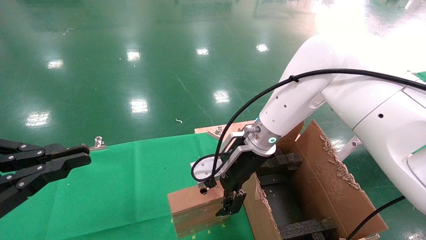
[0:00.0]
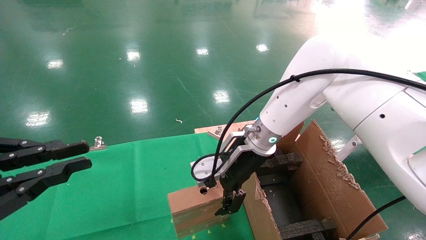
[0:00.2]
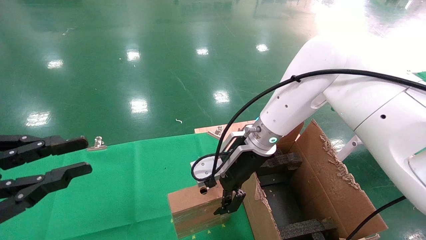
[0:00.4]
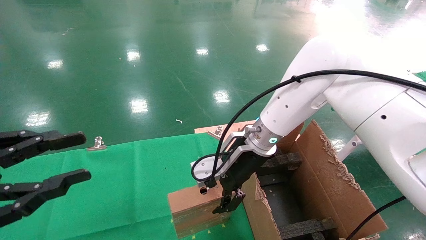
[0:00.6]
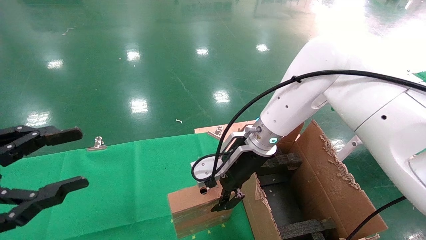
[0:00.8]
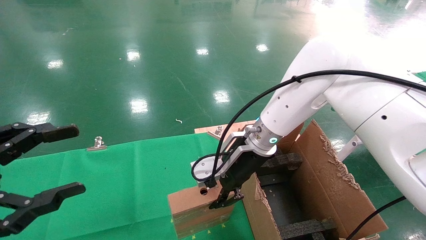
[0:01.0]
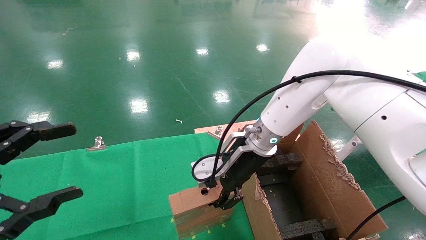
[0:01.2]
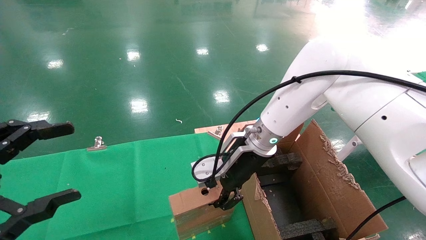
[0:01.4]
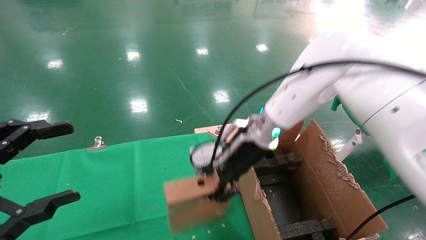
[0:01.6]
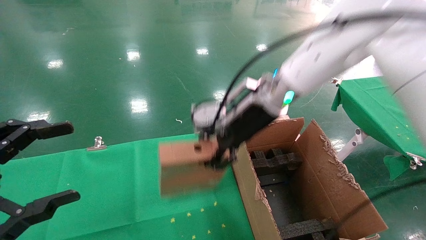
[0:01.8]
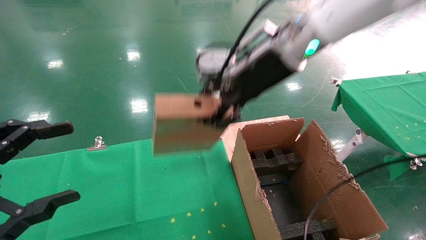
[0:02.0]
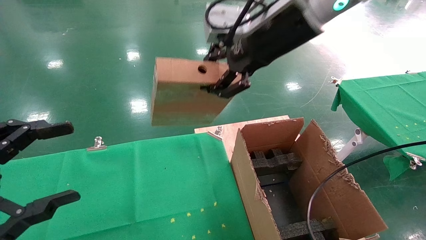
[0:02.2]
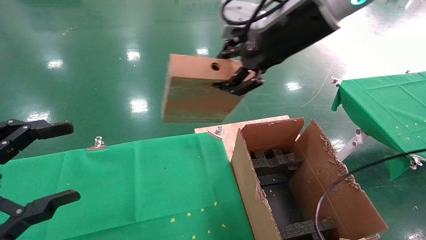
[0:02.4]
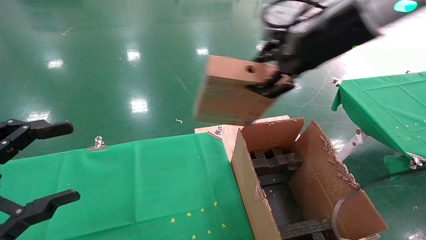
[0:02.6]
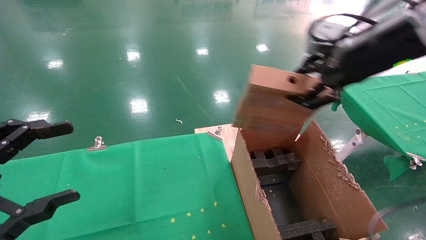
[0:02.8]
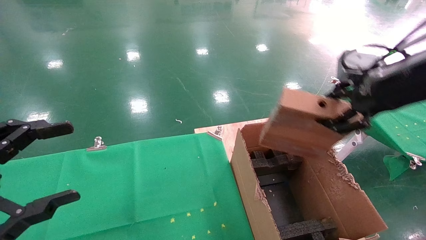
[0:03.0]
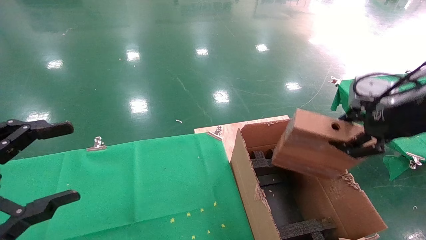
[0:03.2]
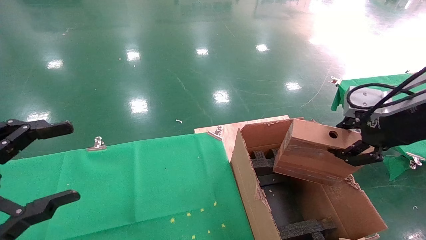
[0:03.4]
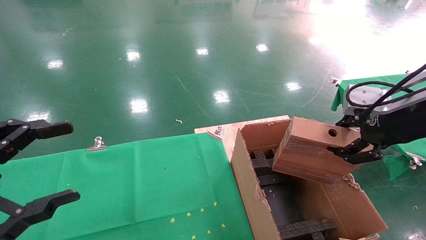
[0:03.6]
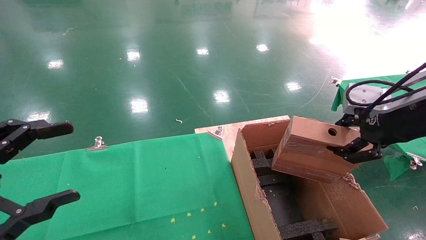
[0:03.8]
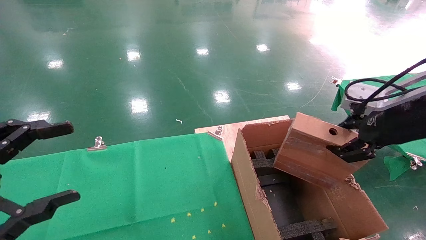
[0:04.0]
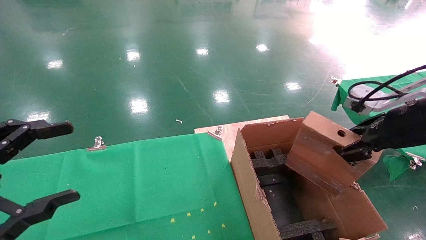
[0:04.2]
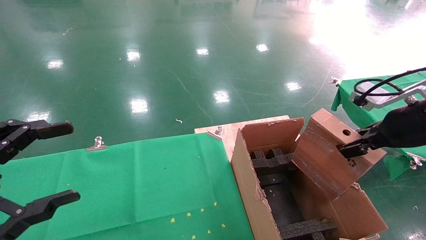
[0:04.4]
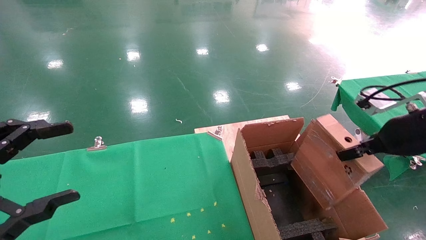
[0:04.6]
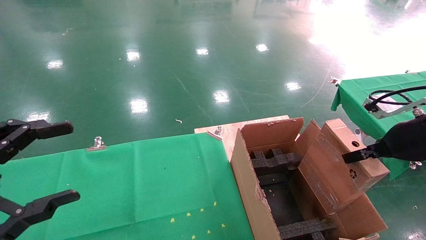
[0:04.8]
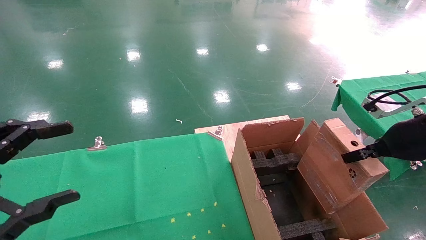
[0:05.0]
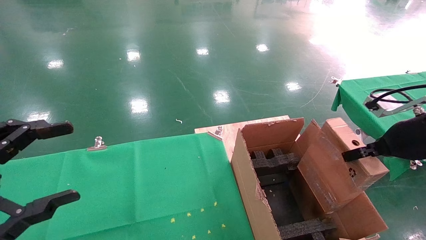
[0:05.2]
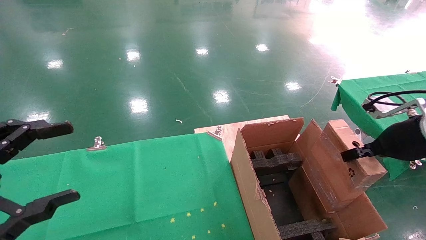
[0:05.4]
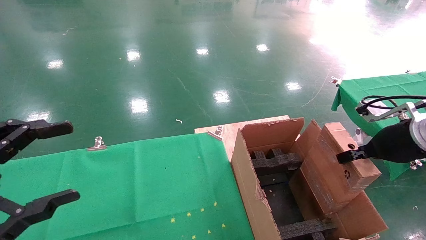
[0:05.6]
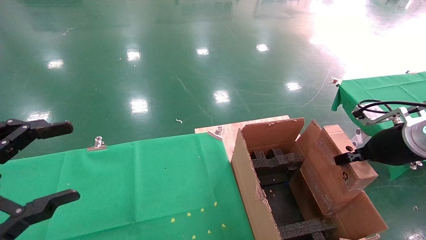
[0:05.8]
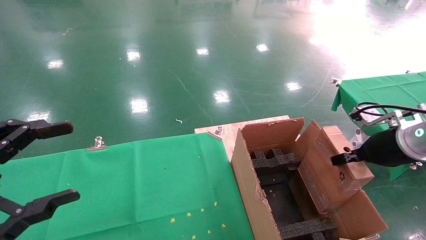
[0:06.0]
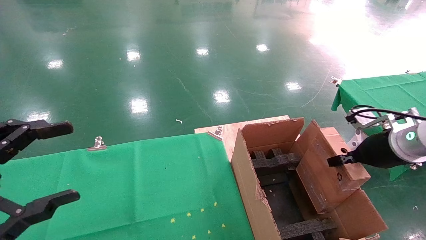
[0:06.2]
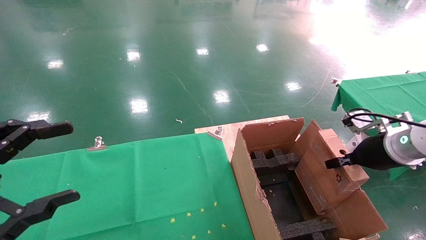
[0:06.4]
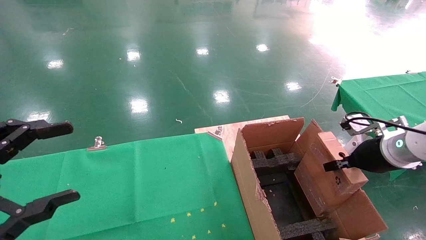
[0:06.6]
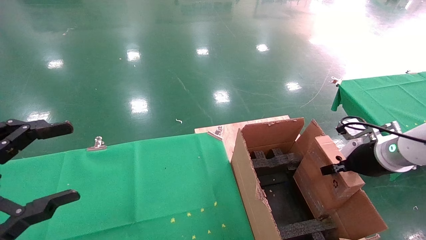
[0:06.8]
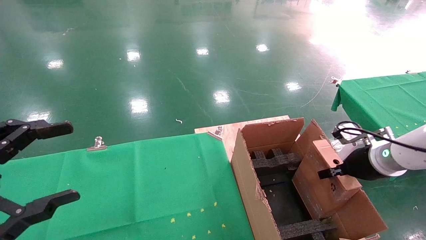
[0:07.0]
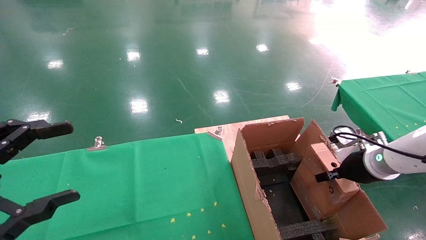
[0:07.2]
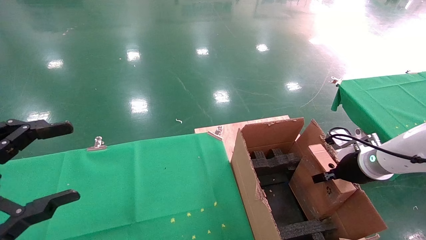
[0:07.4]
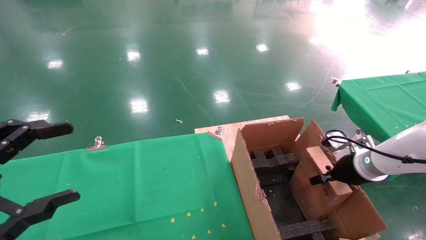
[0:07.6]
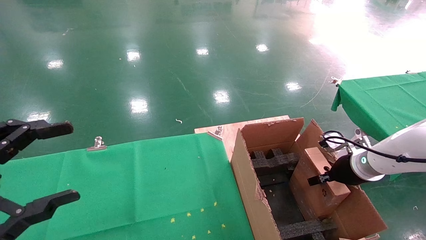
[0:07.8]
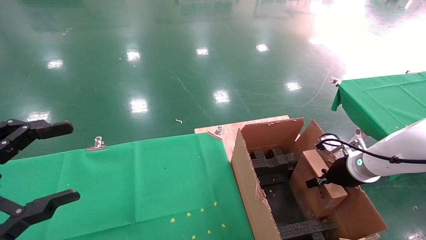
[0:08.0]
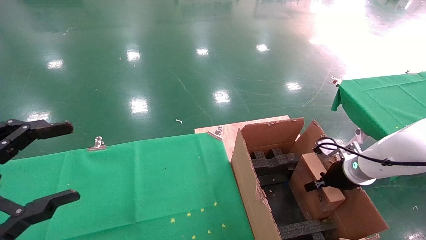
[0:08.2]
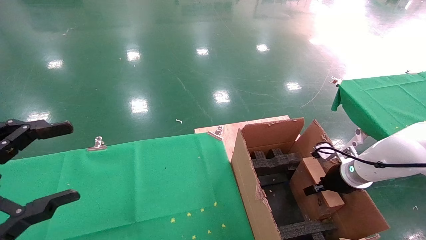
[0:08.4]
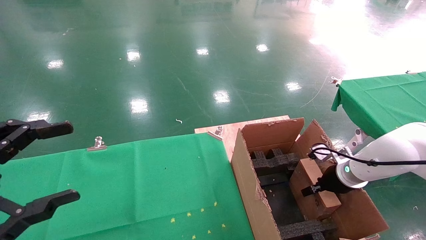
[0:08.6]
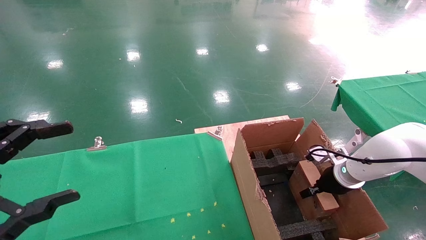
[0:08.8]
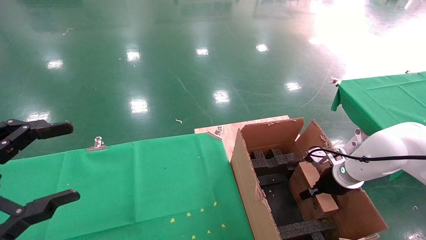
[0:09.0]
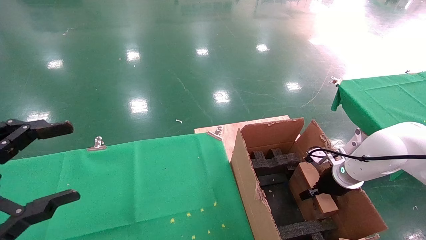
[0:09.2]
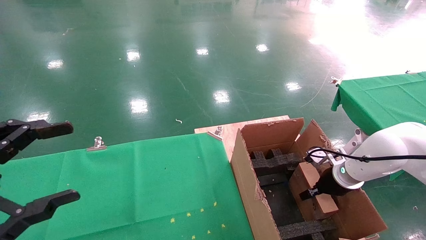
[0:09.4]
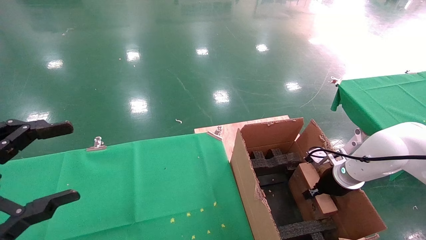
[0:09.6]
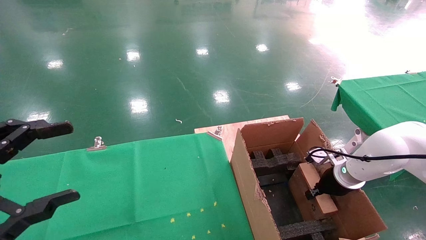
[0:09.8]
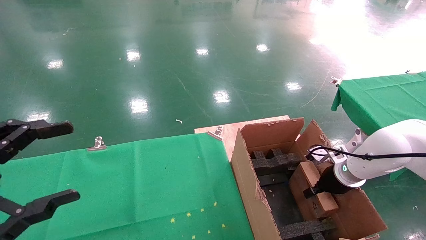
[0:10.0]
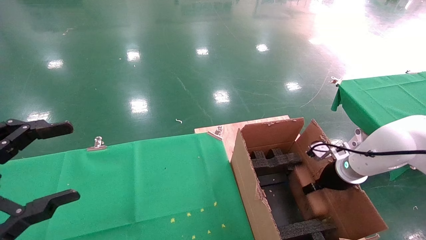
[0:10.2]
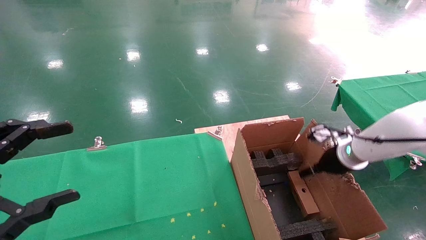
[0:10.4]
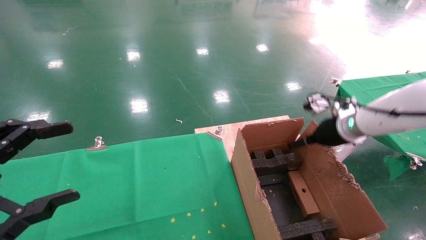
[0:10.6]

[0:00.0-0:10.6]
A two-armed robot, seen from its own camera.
Task of the whole recording: using a robotic arm to pick up a cardboard box and palace it the carton.
Step, 0:00.0 to 0:01.8: Pick up the mouse and the power cord paper box.
Step, 0:02.0 to 0:10.2: Place the mouse and the power cord paper box into the container.
0:00.0 to 0:01.6: The right gripper closes up, while the left gripper opens.
0:01.6 to 0:03.0: The right gripper heads to the right, backward and upward, covering approximately 30 cm.
0:03.0 to 0:04.6: The right gripper is displaced downward by roughly 10 cm.
0:04.6 to 0:06.0: The right gripper is displaced downward by about 5 cm.
0:06.0 to 0:07.6: The right gripper shifts about 10 cm downward and forward.
0:07.6 to 0:09.0: The right gripper heads downward, covering roughly 5 cm.
0:09.0 to 0:10.6: The right gripper is displaced upward by approximately 15 cm, and opens.

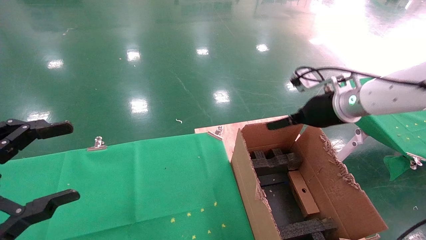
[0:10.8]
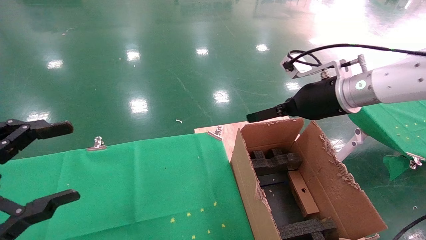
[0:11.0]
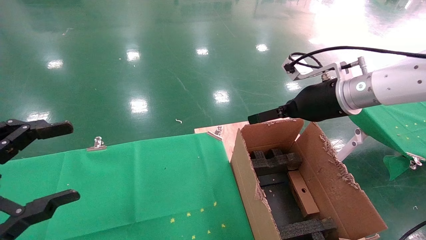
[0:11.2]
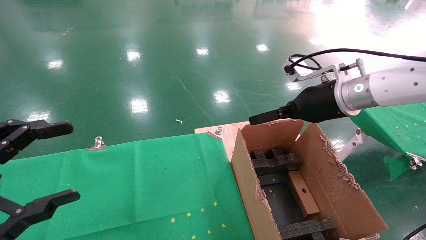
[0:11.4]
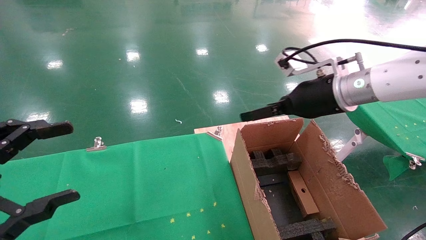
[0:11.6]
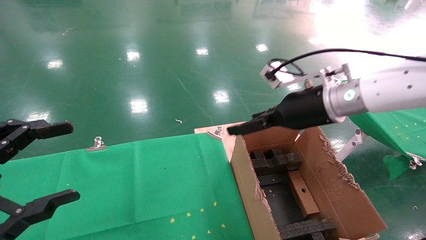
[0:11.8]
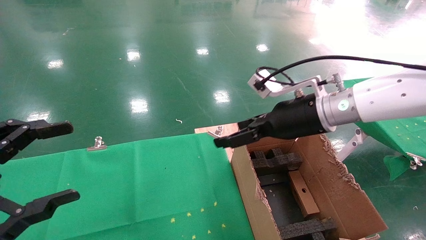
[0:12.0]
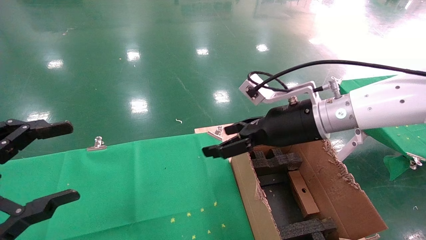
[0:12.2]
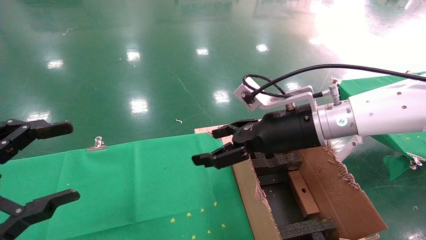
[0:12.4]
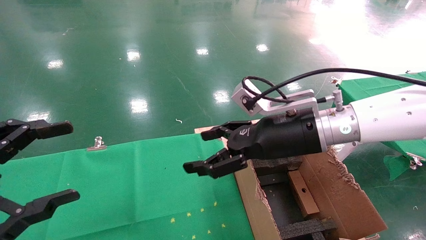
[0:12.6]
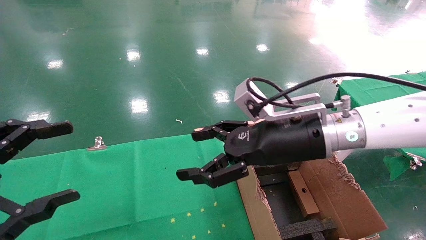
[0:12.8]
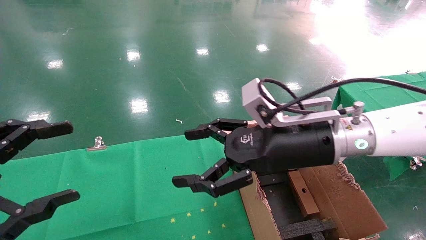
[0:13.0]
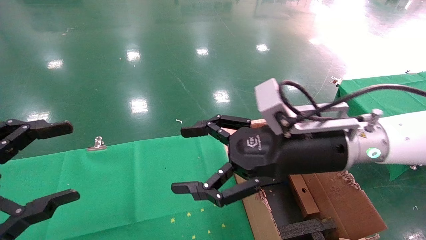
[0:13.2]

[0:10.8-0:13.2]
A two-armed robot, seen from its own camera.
Task of the whole recording: using a robotic arm to pick up a cardboard box and palace it the carton.
0:10.8 to 0:12.0: The right gripper heads to the left, covering roughly 10 cm.
0:12.0 to 0:13.2: The right gripper is displaced backward by roughly 10 cm.
